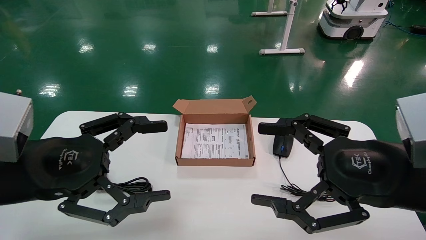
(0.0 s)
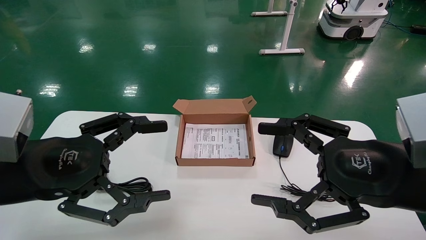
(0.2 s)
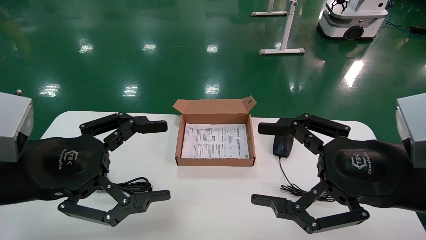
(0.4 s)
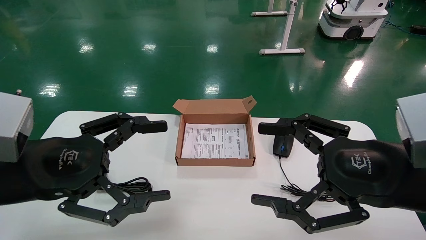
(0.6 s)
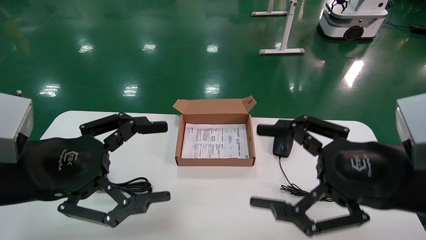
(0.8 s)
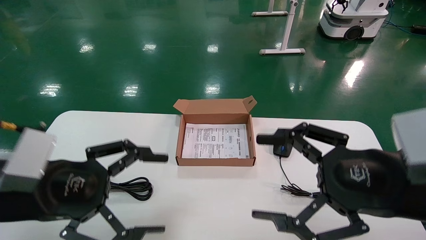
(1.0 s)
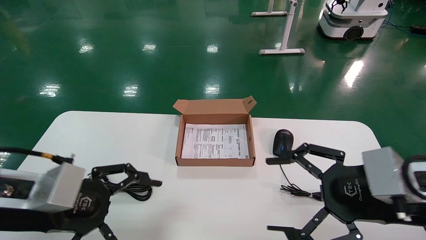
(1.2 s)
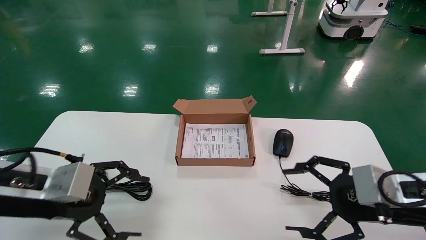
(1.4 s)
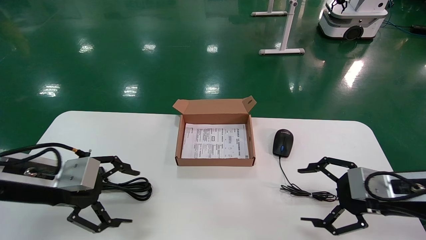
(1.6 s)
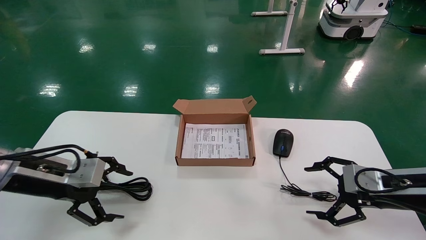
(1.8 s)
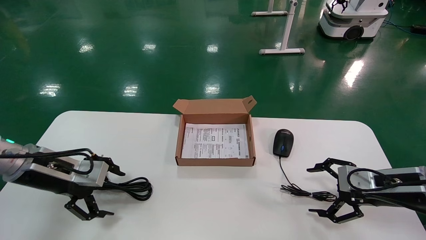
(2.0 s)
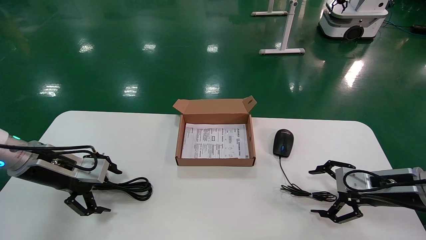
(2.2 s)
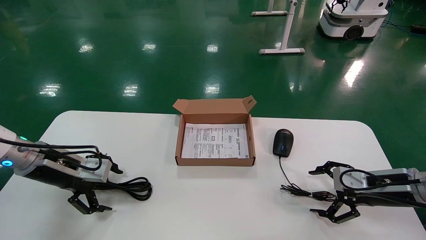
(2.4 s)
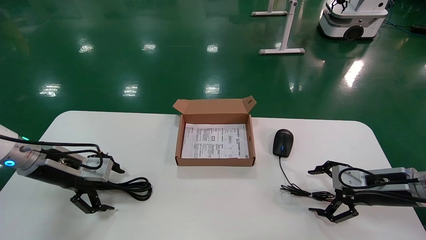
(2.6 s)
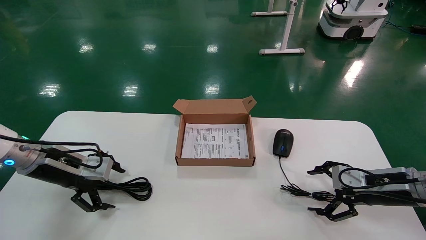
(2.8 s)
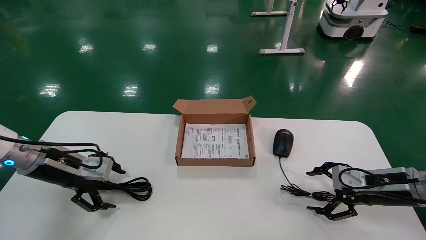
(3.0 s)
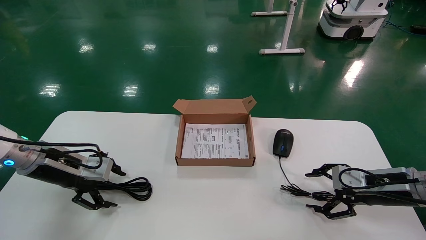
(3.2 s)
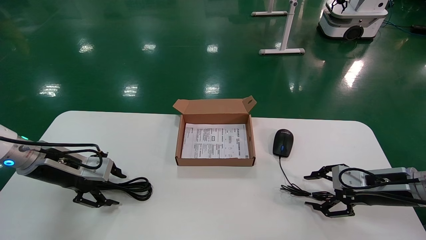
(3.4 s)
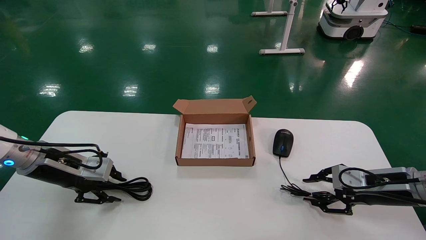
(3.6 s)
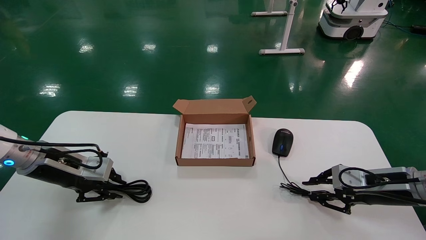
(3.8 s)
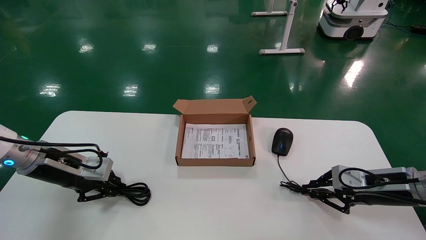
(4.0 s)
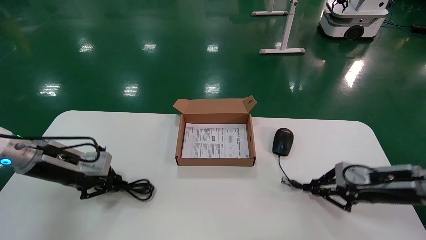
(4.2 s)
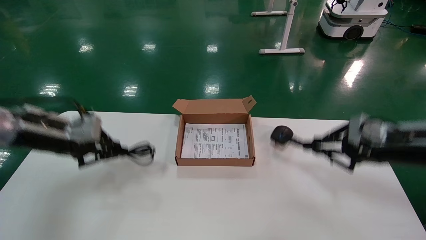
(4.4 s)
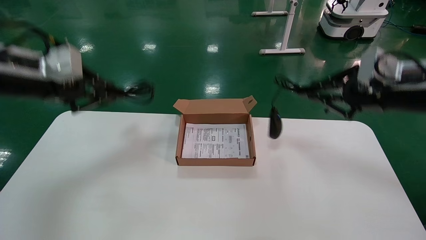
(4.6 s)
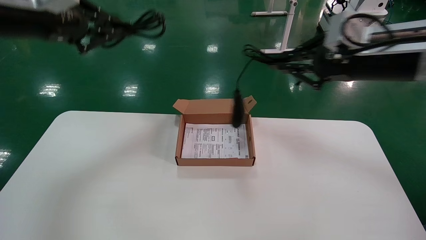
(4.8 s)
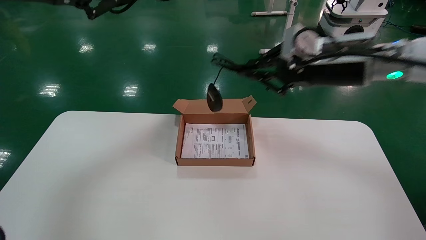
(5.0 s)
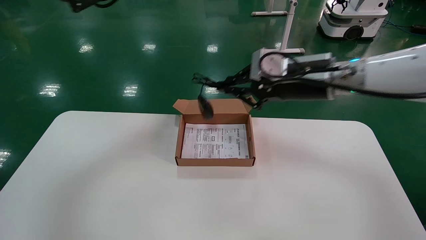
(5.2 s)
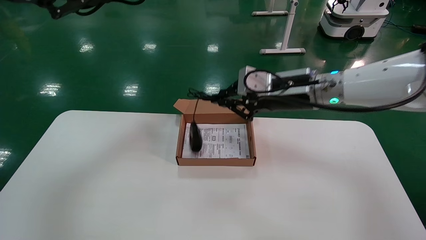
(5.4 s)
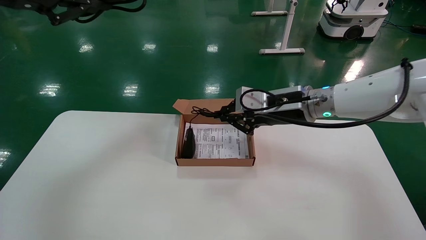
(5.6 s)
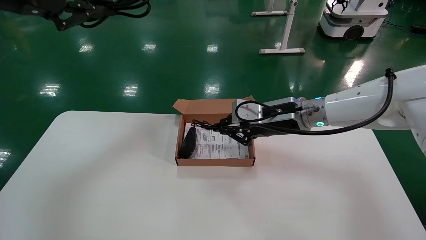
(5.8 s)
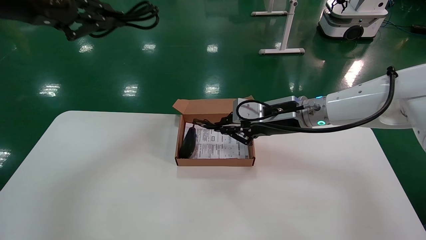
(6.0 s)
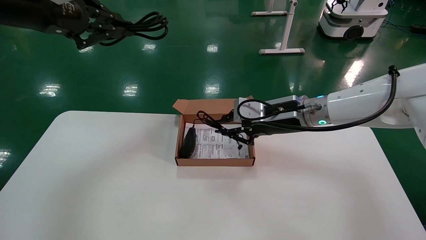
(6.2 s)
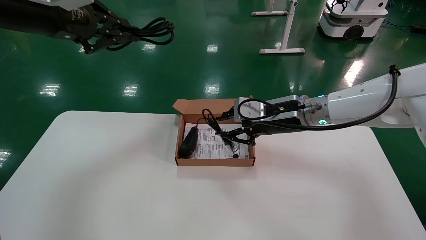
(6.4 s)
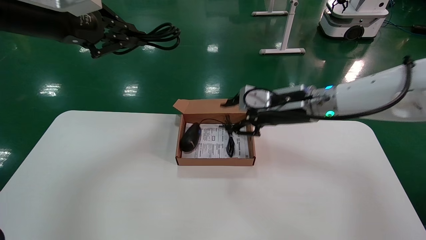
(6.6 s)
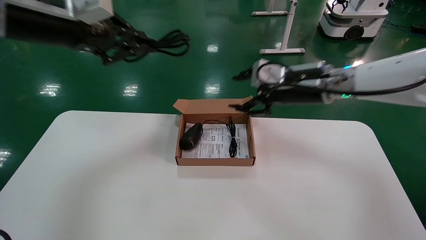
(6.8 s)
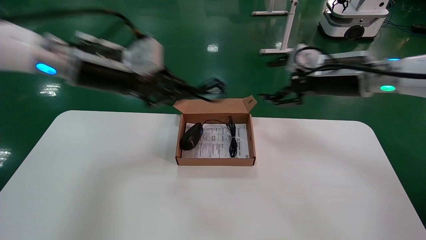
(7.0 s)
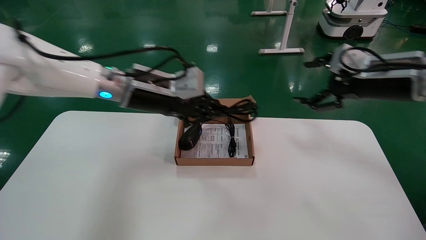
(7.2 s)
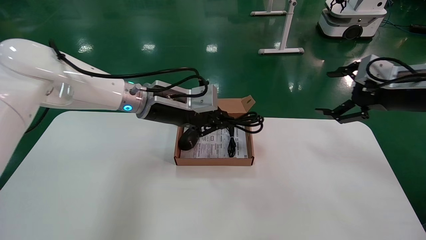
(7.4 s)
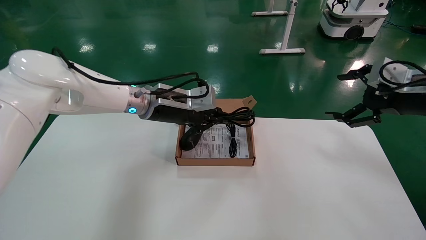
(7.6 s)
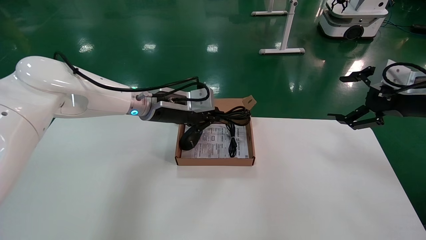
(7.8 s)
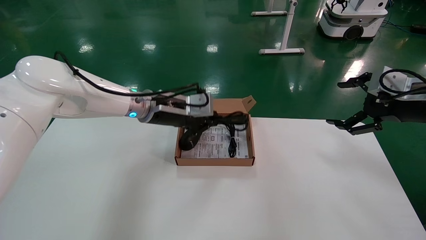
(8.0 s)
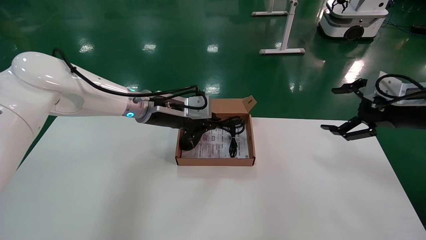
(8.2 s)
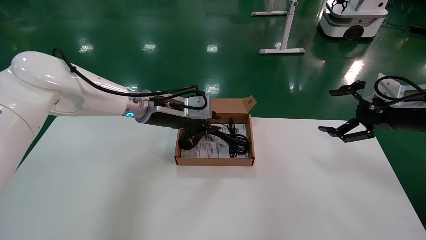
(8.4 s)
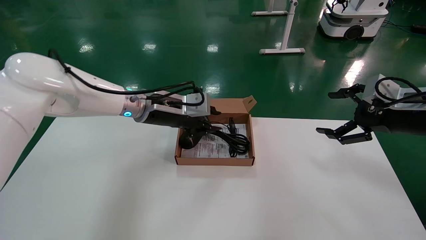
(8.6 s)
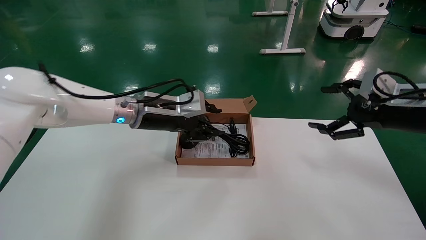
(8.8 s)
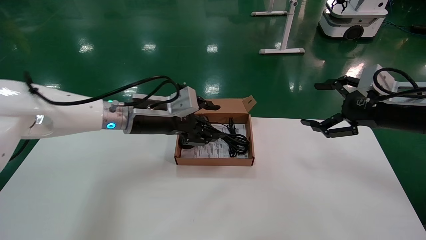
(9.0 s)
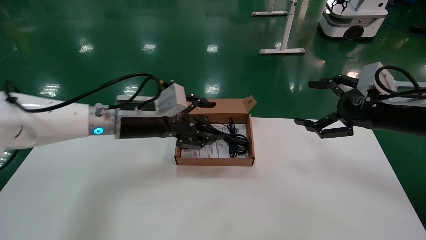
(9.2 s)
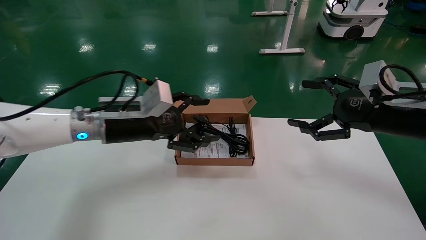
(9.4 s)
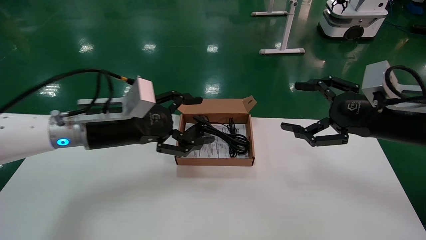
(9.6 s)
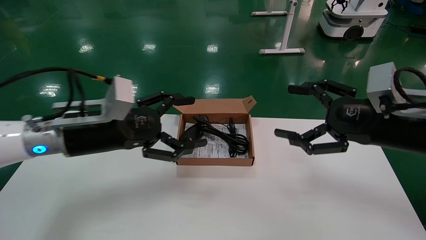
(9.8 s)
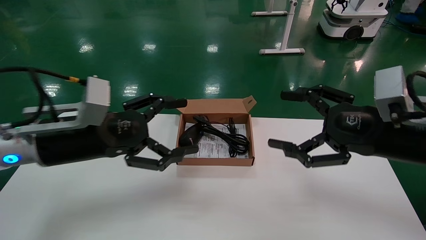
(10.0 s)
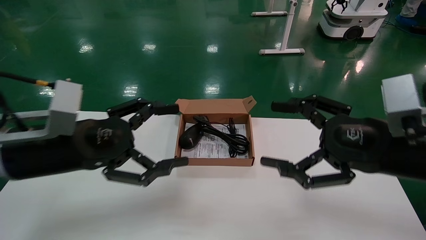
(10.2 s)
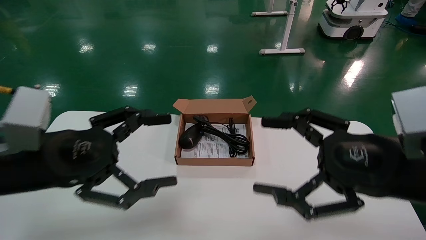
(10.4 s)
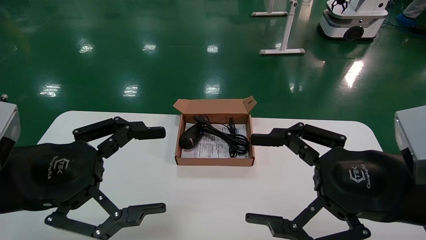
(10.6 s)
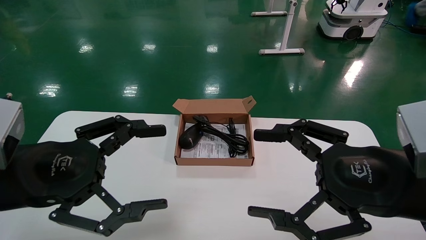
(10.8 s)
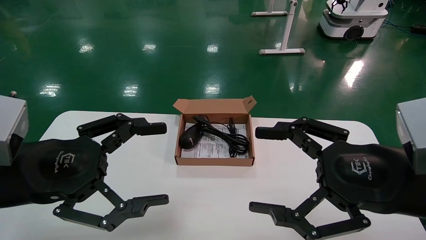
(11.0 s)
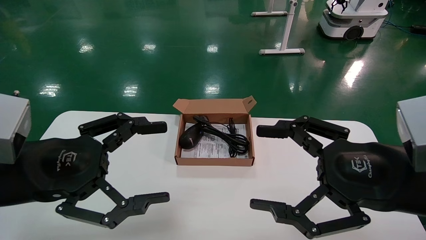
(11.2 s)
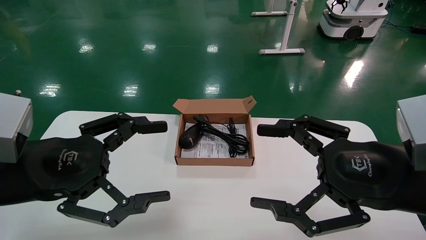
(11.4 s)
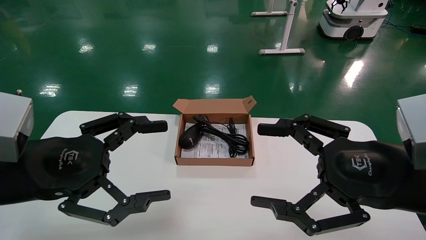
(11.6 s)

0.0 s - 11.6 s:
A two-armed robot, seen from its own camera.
Step, 1.0 s - 4.0 s: Grab and lift both the mouse and power cord from the accessory packaging area at the same time.
Step, 4.2 s - 8.4 s: Place the mouse and power cord into the box.
0.0 s - 1.4 s: The right gripper heads downward, forward and to the right, covering approximately 10 cm. Meanwhile the left gripper shifts by about 5 cm.
1.4 s - 2.8 s: The left gripper is displaced forward and to the left by about 15 cm. The right gripper goes about 15 cm forward, downward and to the right.
2.8 s - 4.4 s: Both grippers move upward, roughly 10 cm. The left gripper closes, while the right gripper closes up.
4.4 s - 5.8 s: The right gripper heads to the left, covering approximately 20 cm, while the left gripper shifts approximately 20 cm upward.
5.8 s - 7.2 s: The left gripper heads to the right, downward and forward, covering about 25 cm; the right gripper is displaced to the right by approximately 15 cm, and opens its fingers.
7.2 s - 8.8 s: The right gripper ends up some 5 cm from where it was. The left gripper is displaced downward by about 5 cm.
8.8 s - 10.2 s: Both grippers travel together backward and to the left, approximately 20 cm. The left gripper opens.
10.2 s - 11.6 s: The left gripper is displaced backward by some 5 cm.

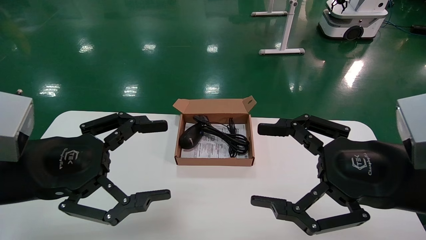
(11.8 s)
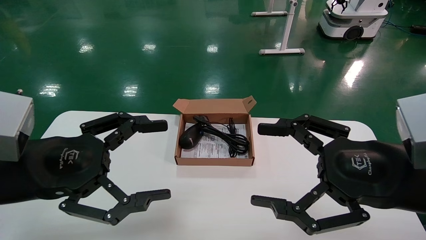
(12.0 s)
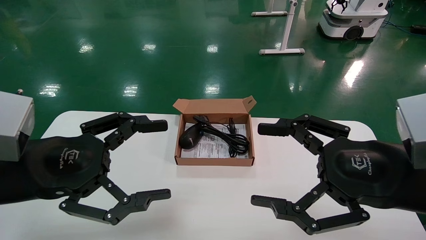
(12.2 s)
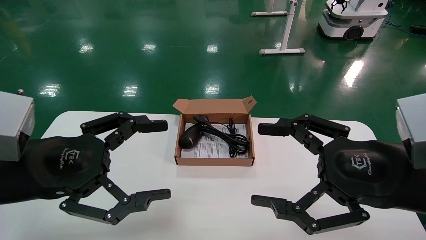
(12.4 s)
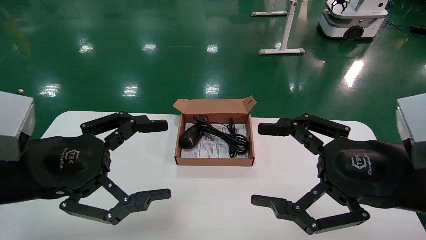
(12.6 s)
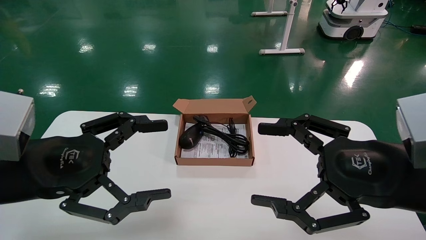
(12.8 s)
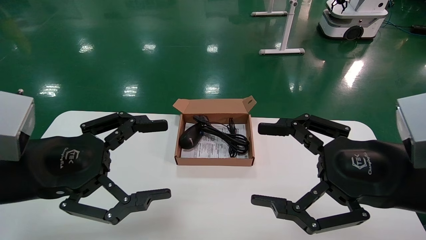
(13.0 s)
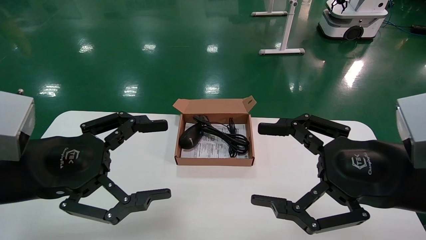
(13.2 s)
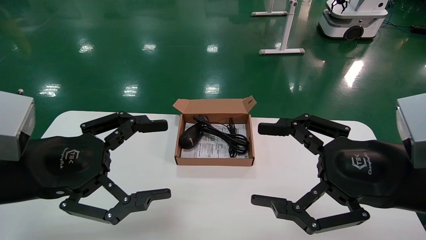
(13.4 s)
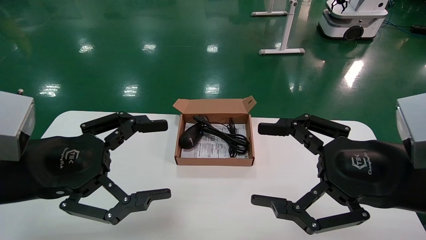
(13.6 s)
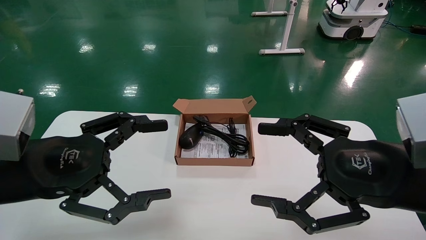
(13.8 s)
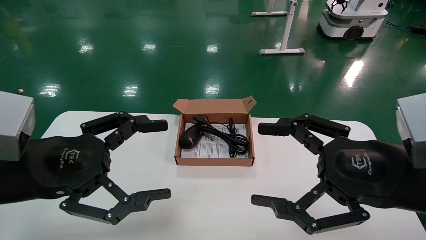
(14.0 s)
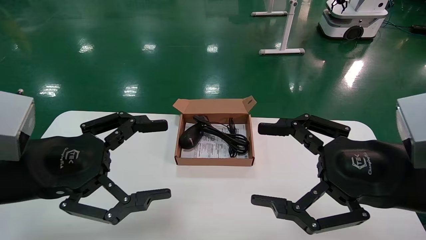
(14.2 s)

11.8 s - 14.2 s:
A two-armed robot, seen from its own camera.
11.8 s - 14.2 s: The two grippers keep their place.
